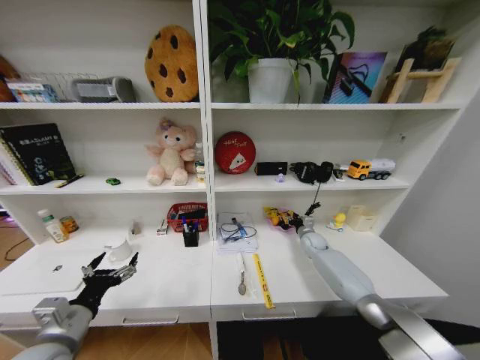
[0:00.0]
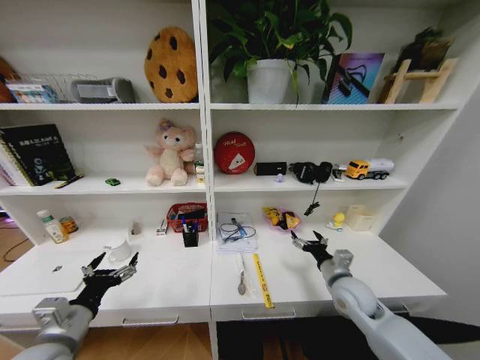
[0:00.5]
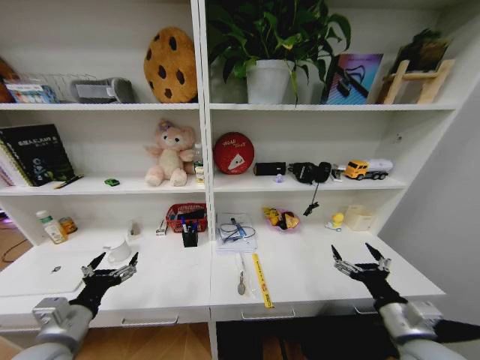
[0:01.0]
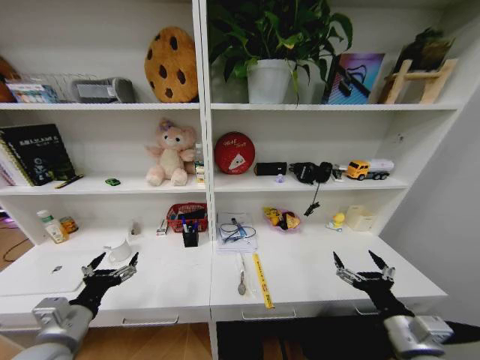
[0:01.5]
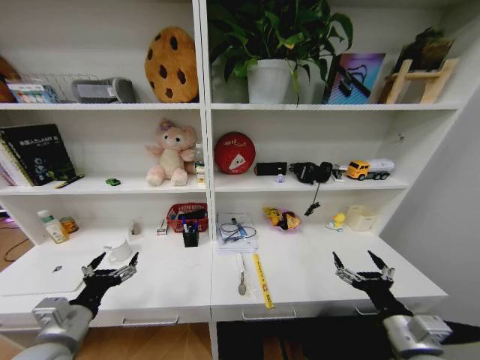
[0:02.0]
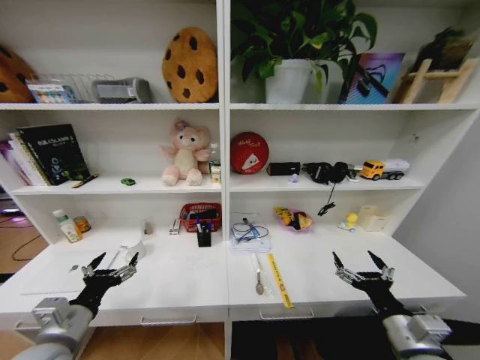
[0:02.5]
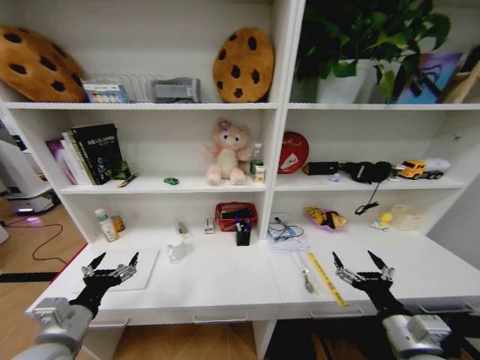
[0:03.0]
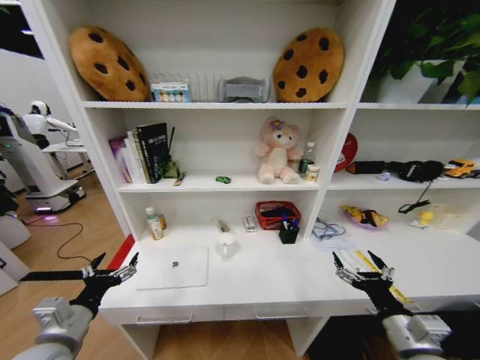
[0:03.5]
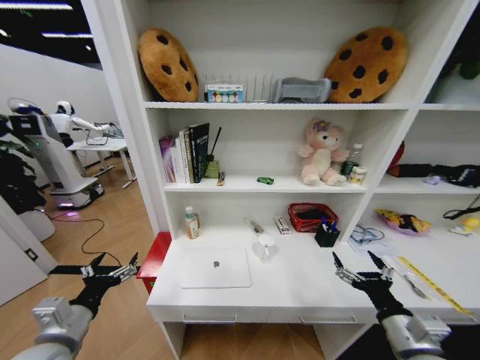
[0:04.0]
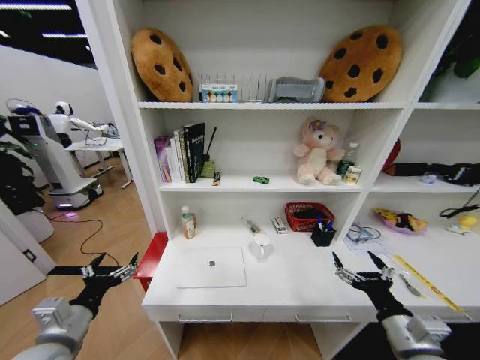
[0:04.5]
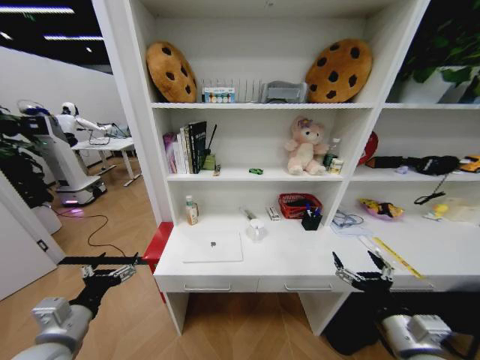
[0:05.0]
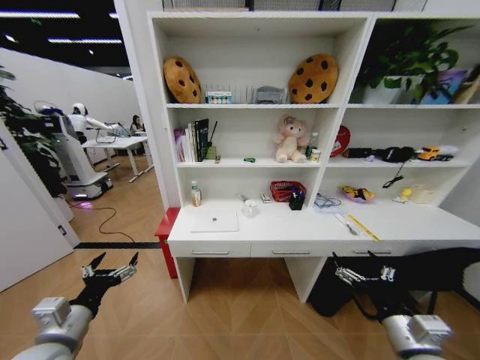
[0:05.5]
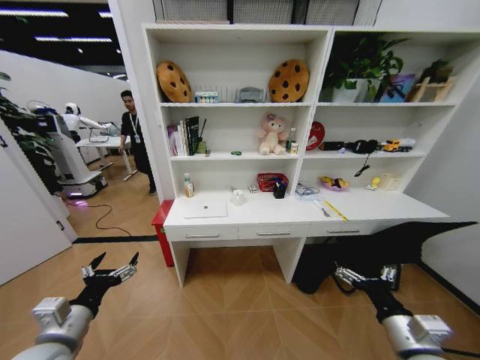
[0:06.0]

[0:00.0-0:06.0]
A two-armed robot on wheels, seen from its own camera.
Task of the whole recording: Organize the objects on the table.
0:00.0 to 0:02.0: The right gripper goes about 40 cm backward, and opens its fingers.
